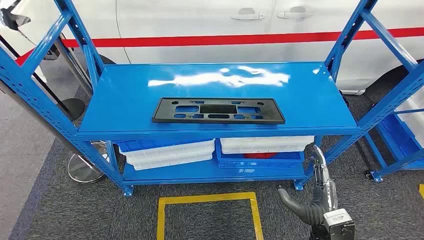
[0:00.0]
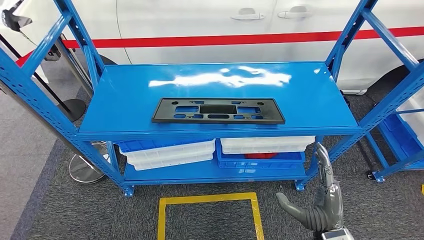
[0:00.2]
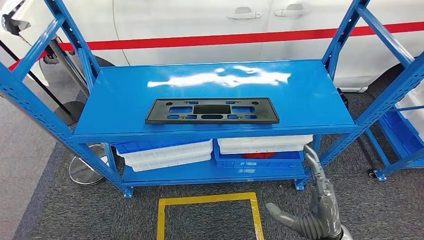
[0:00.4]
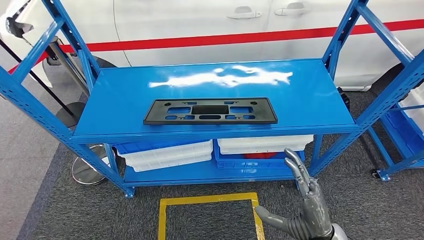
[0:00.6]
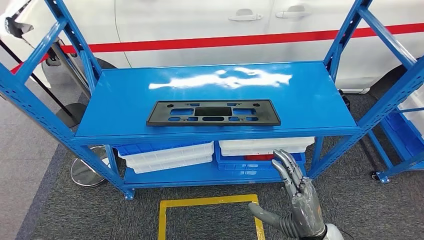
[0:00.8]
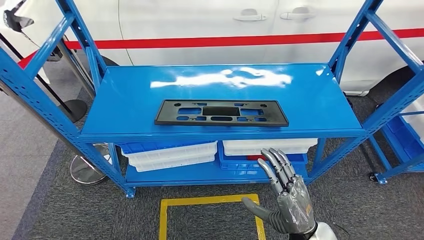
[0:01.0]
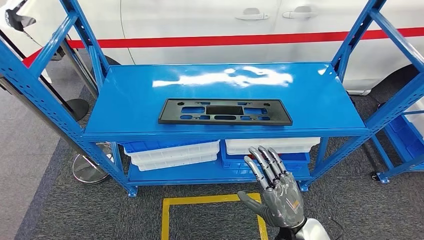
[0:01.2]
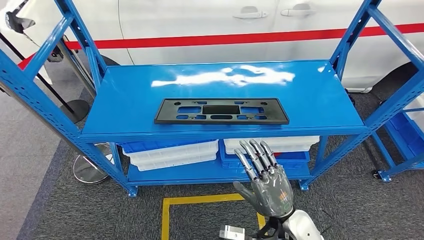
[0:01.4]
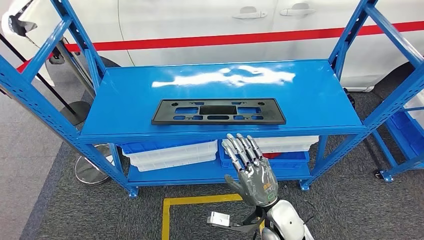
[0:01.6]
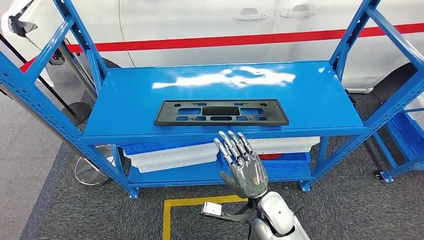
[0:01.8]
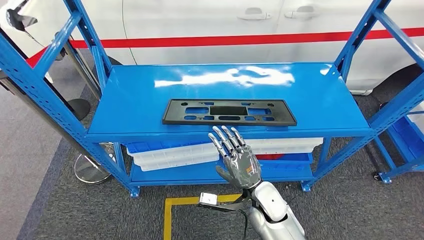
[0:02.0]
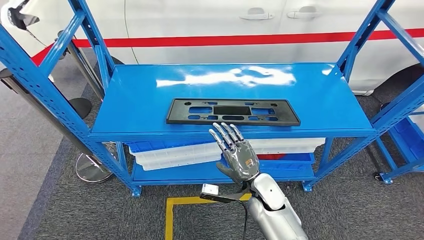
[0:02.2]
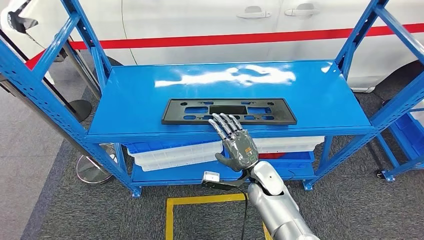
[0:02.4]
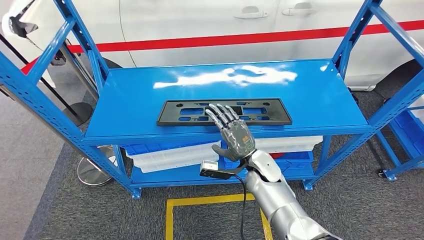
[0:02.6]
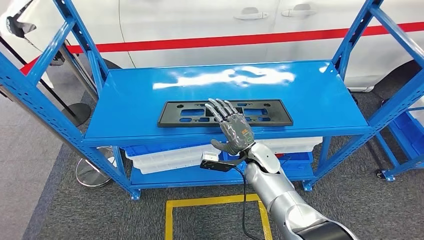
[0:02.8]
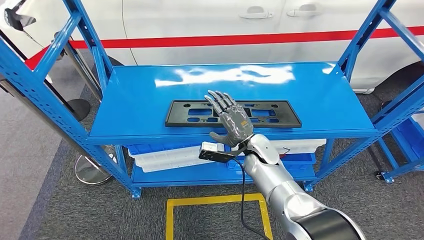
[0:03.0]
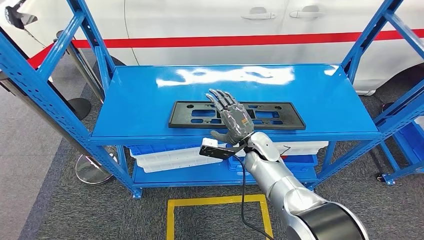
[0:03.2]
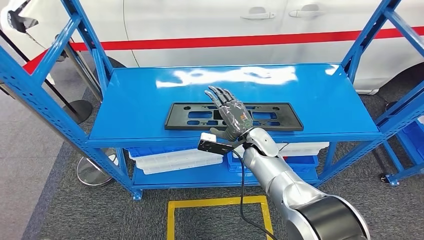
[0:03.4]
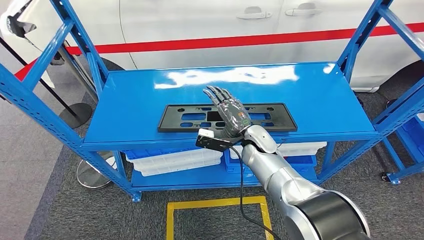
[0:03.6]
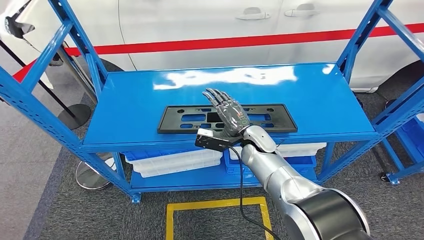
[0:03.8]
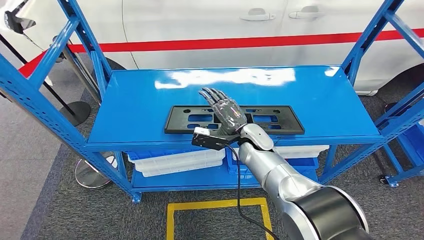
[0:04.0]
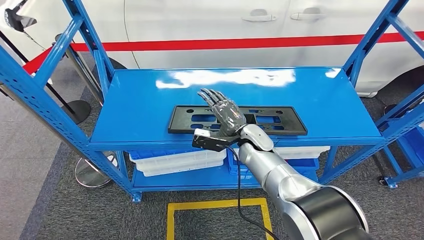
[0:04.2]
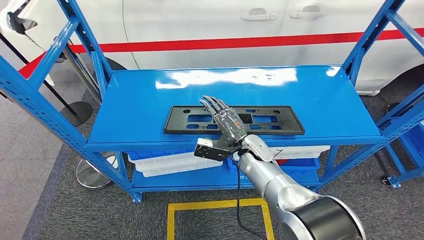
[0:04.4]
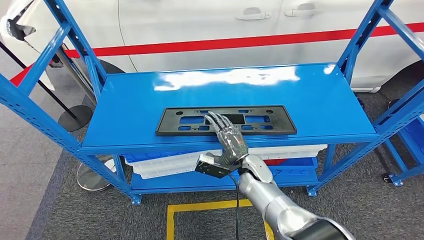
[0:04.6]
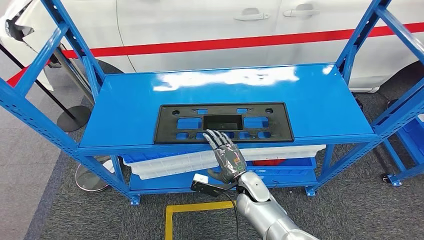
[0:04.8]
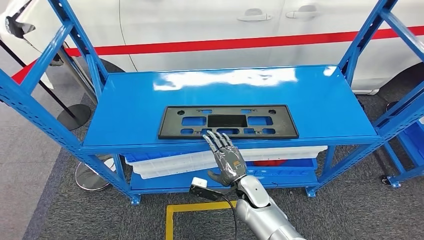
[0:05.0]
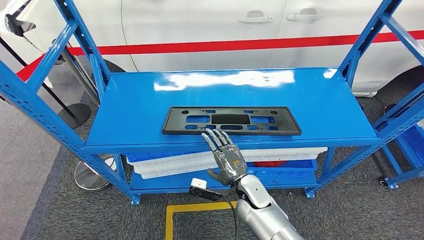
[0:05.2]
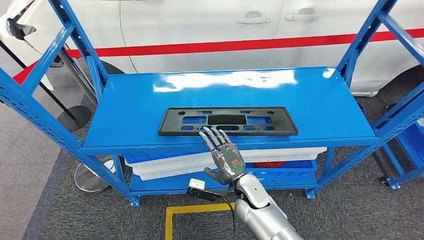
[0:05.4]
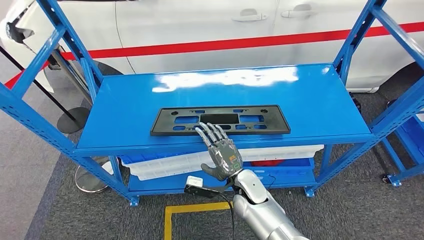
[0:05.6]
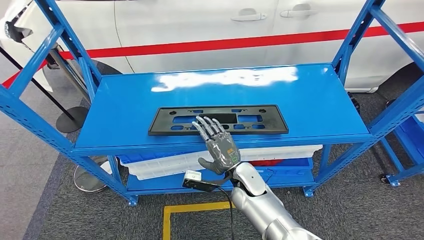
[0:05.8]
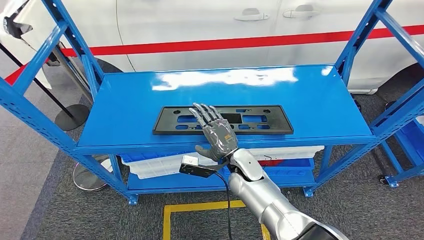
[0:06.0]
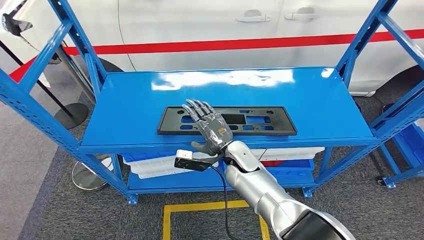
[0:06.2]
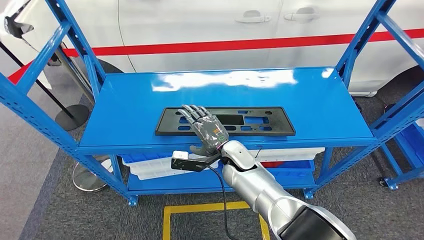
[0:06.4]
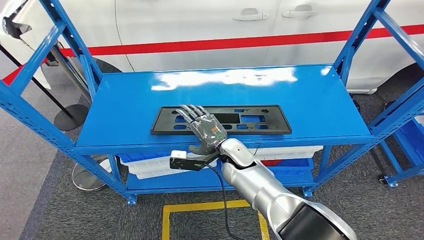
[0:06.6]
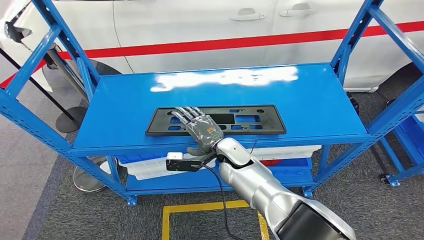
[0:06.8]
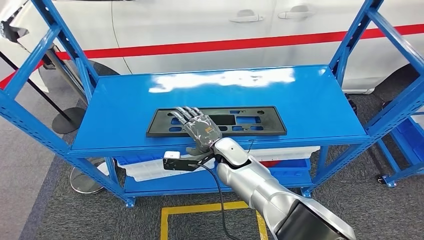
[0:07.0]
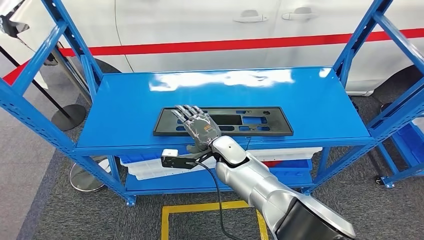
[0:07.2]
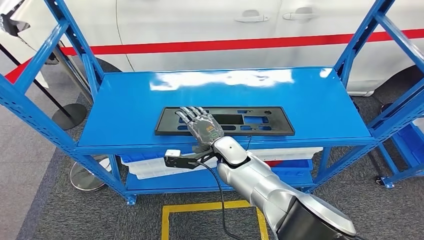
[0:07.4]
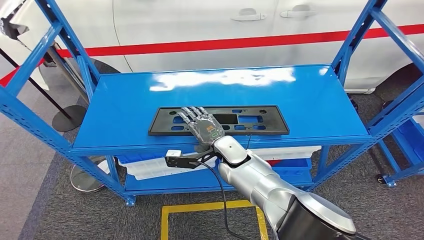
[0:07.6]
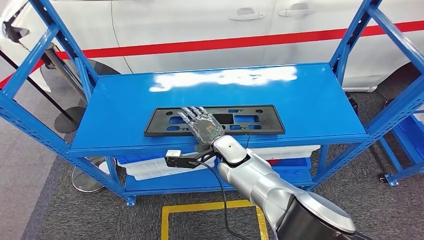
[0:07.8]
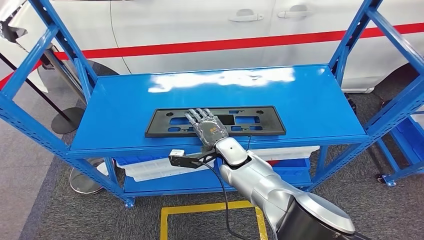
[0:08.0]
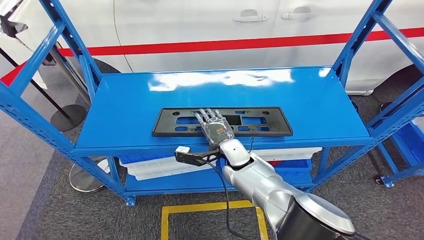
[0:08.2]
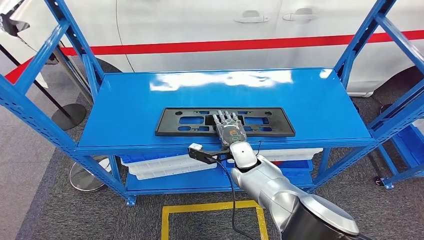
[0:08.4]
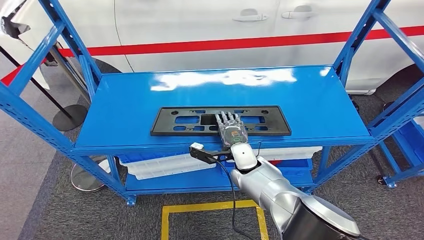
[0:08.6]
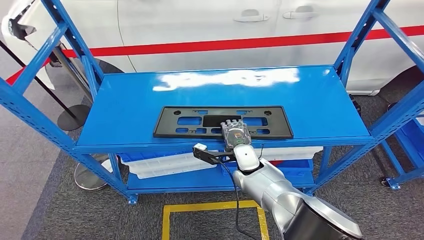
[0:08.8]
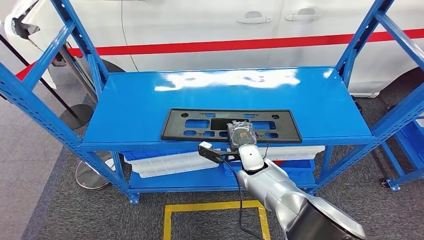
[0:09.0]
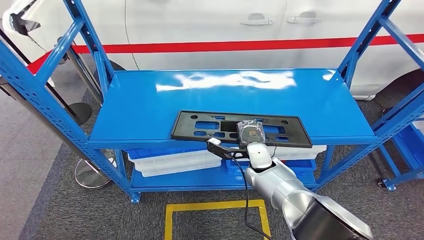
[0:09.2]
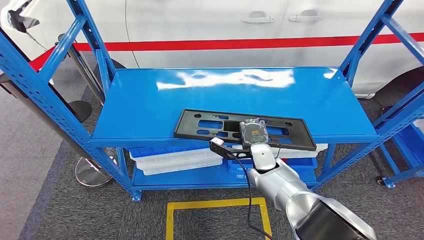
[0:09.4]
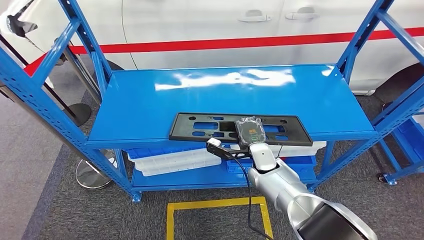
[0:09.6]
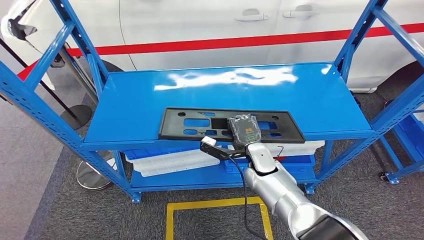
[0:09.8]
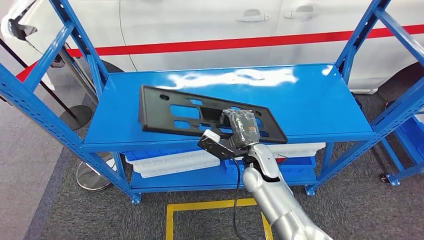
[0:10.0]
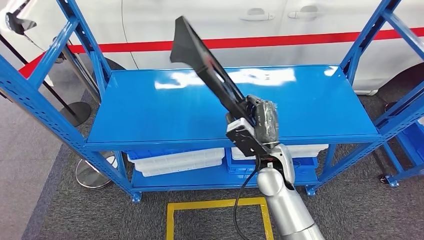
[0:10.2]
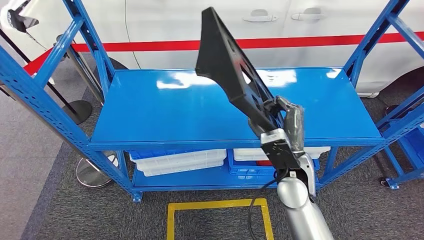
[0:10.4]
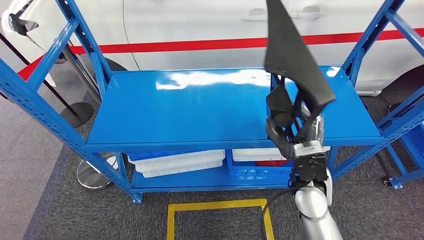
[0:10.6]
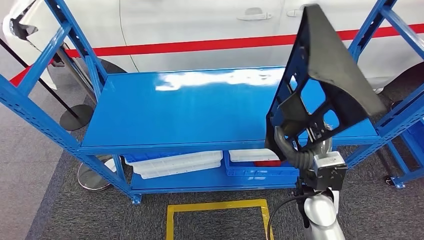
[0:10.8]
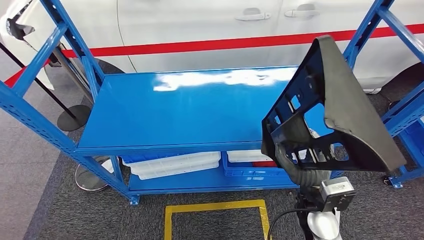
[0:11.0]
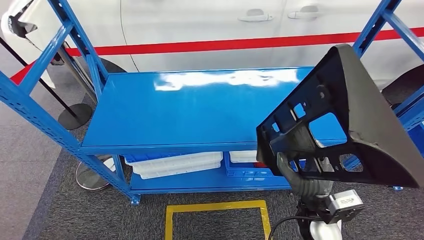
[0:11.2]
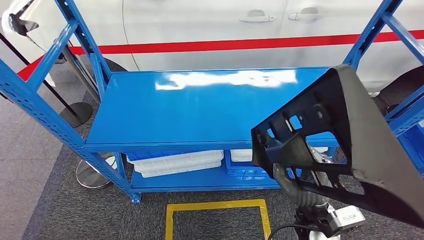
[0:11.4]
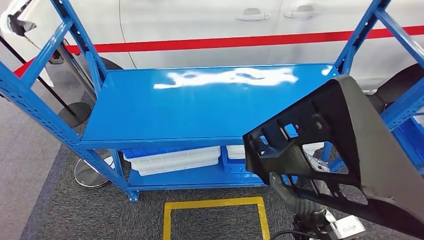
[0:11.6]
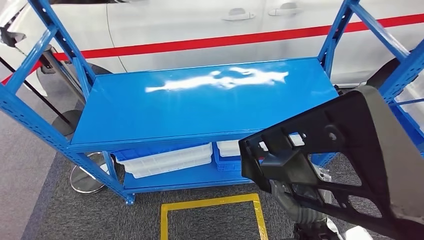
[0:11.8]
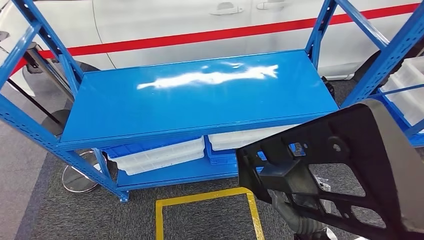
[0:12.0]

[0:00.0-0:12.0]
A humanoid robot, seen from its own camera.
Step, 0:00.0 to 0:10.8: Pick up the large material from the shelf.

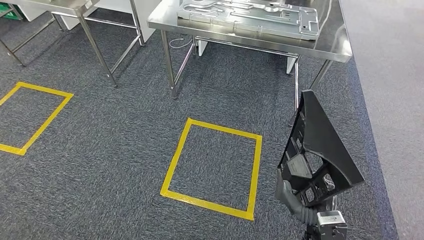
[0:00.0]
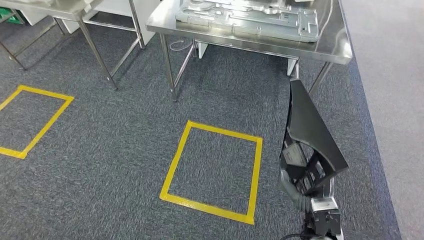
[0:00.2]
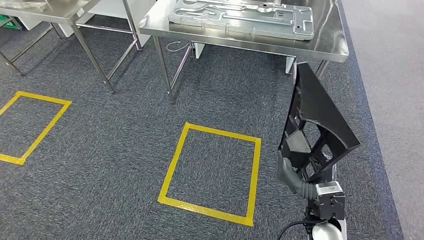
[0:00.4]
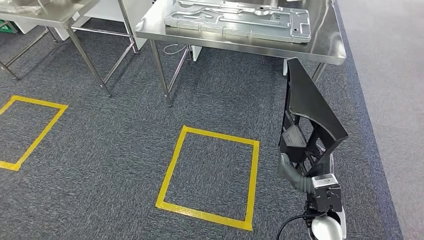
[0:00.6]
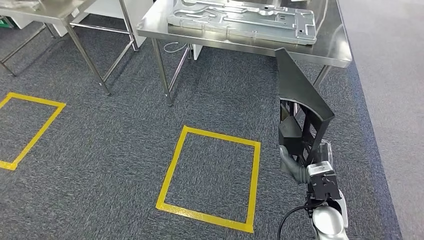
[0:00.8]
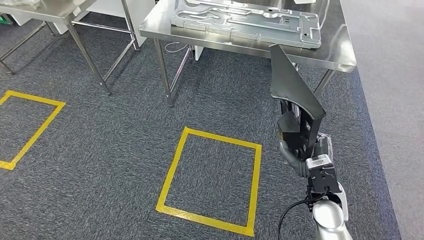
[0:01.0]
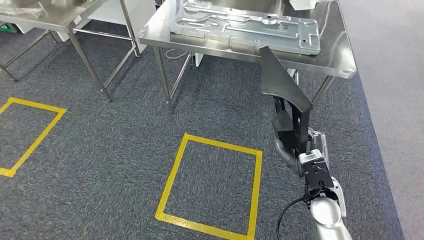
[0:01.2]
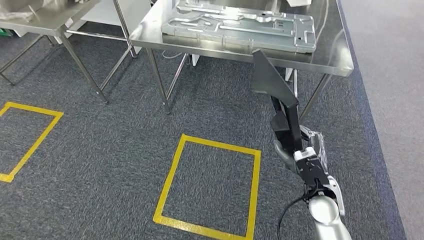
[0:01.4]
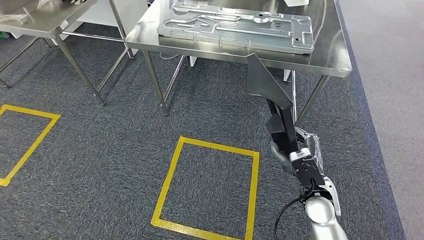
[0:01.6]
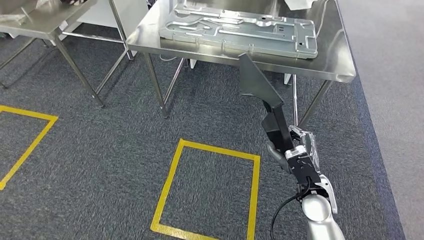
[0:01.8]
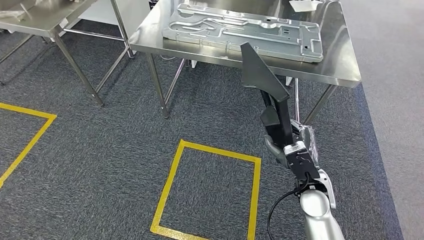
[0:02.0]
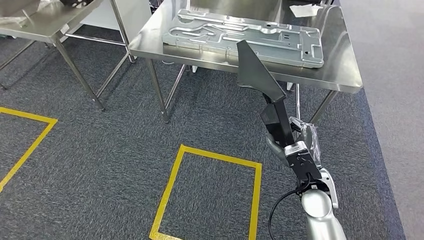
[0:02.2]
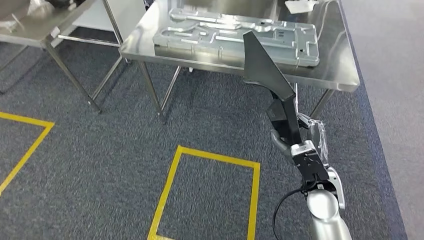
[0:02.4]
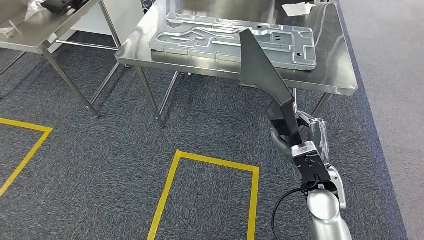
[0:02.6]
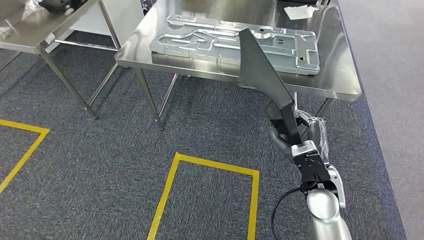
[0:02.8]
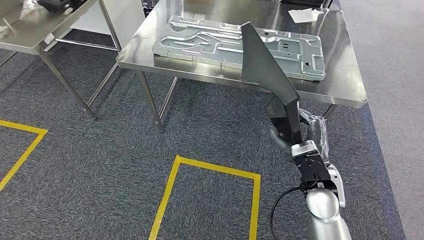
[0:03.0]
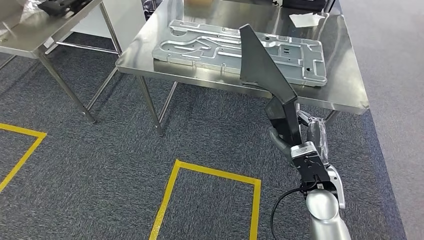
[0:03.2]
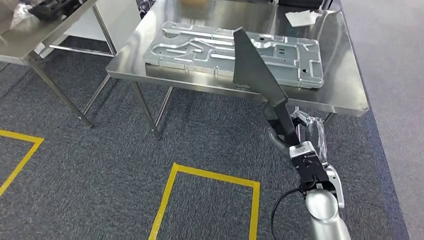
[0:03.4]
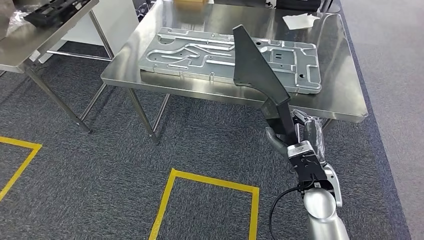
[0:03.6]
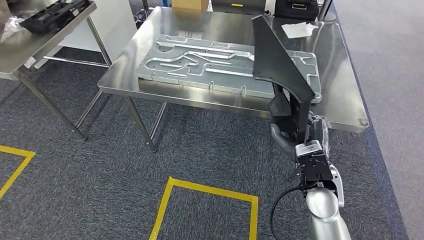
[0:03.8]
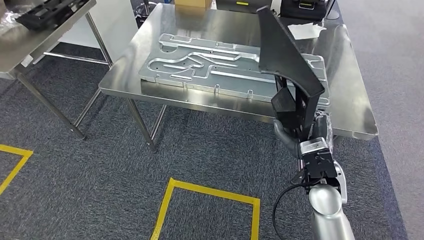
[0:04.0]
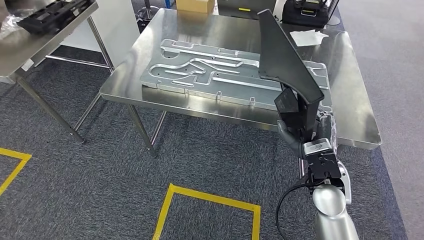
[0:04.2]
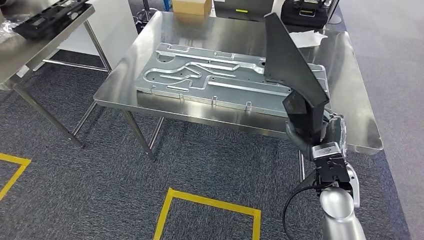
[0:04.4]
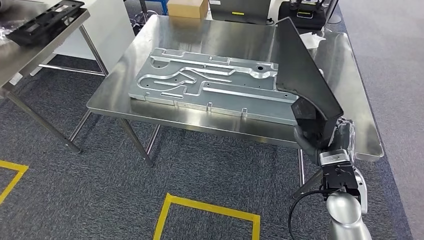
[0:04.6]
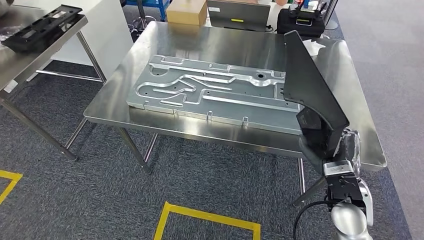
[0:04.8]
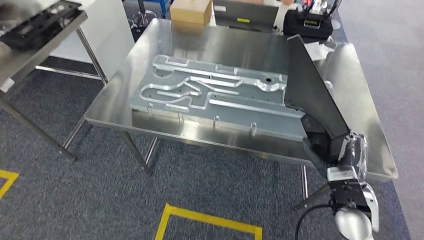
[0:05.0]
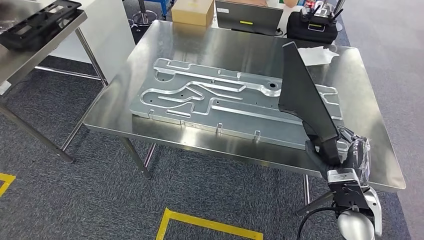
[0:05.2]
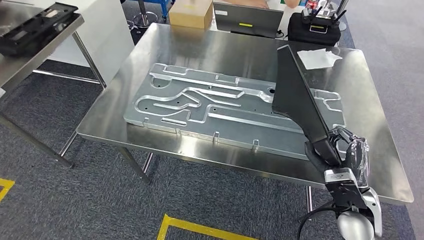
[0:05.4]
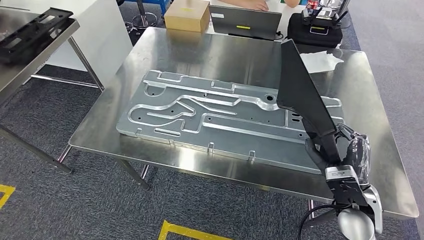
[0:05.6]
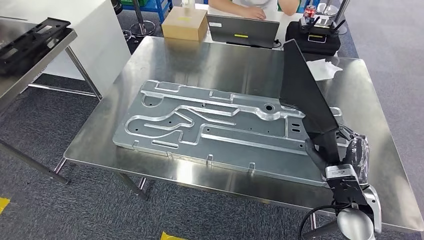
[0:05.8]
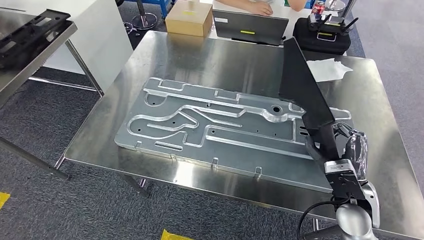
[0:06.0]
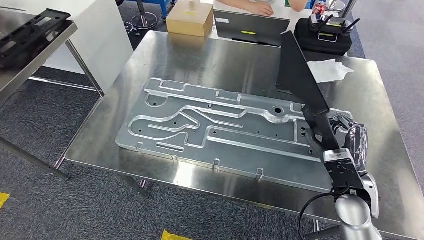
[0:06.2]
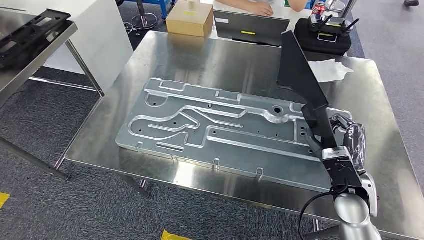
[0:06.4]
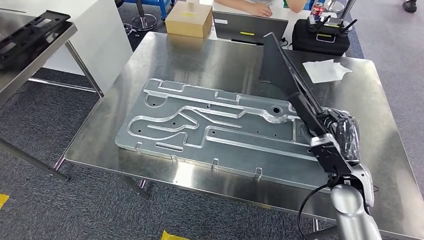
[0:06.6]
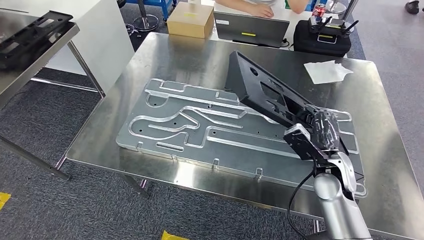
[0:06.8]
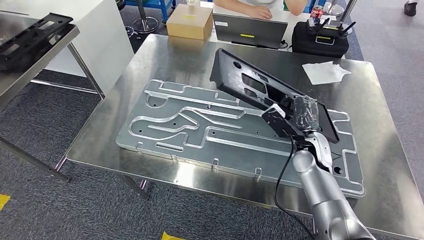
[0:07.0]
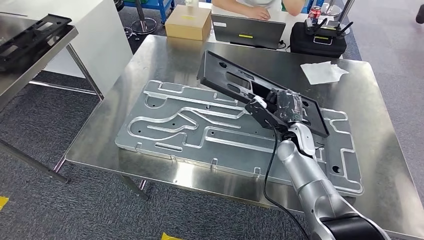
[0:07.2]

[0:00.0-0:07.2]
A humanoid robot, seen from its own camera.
Step, 0:00.0 to 0:04.0: Move the large material to the workbench.
